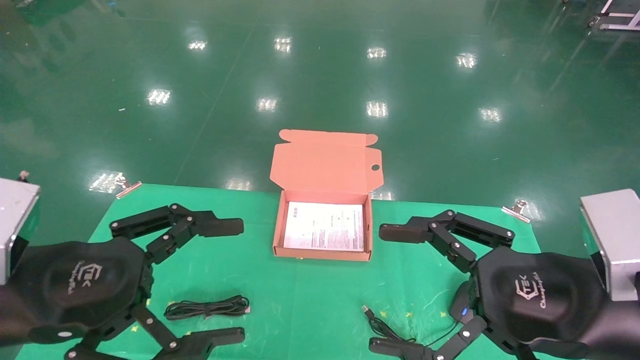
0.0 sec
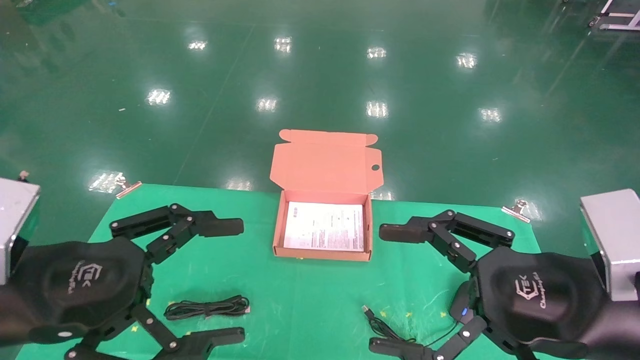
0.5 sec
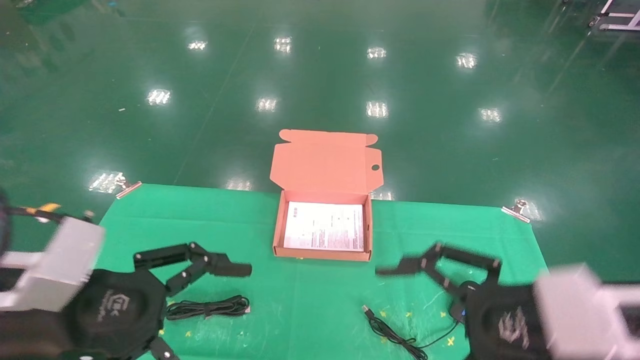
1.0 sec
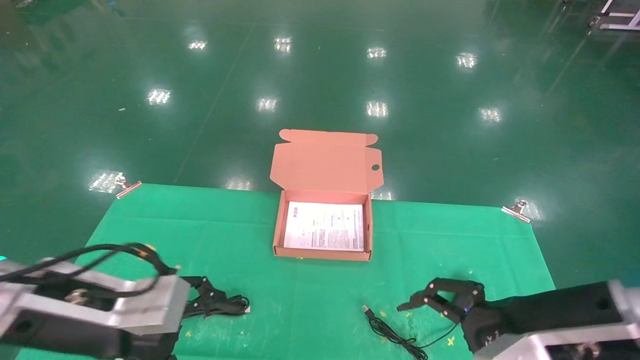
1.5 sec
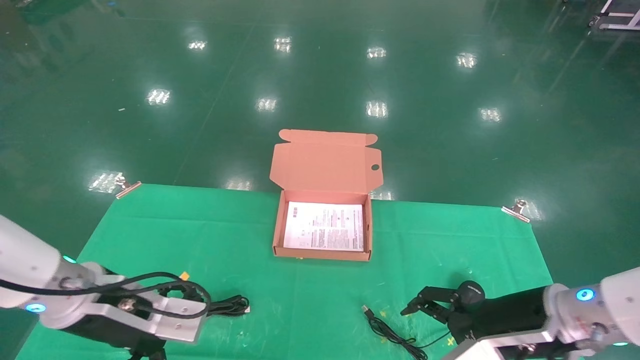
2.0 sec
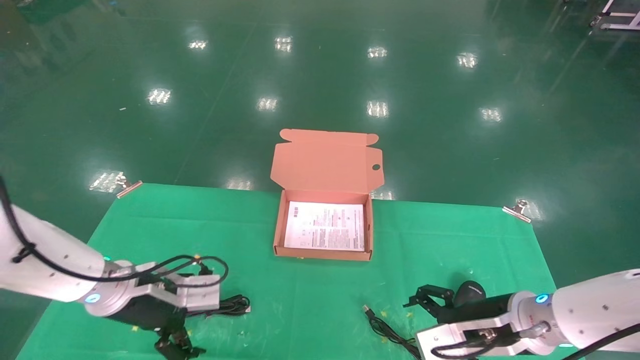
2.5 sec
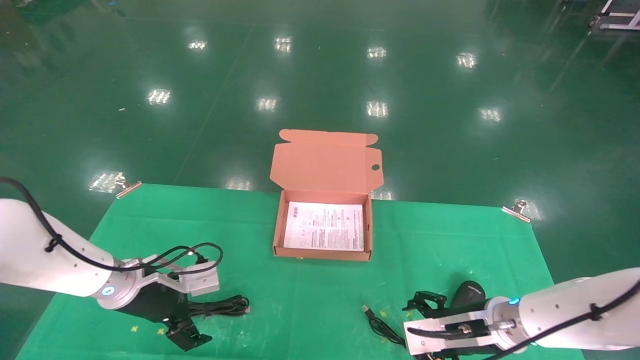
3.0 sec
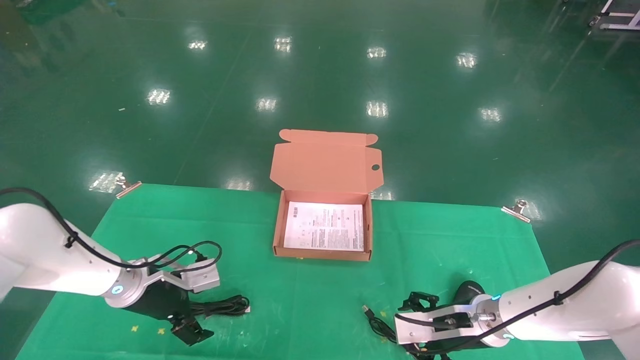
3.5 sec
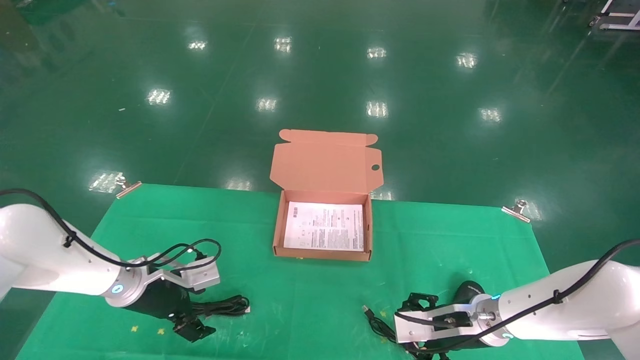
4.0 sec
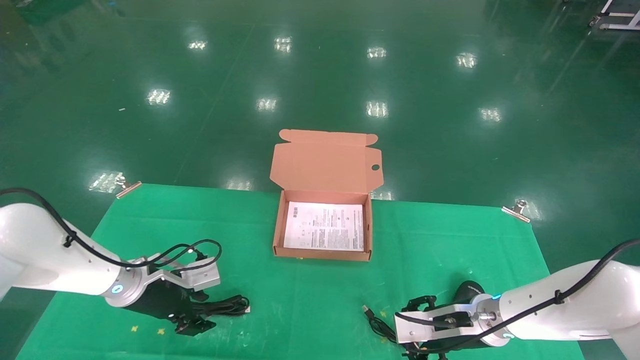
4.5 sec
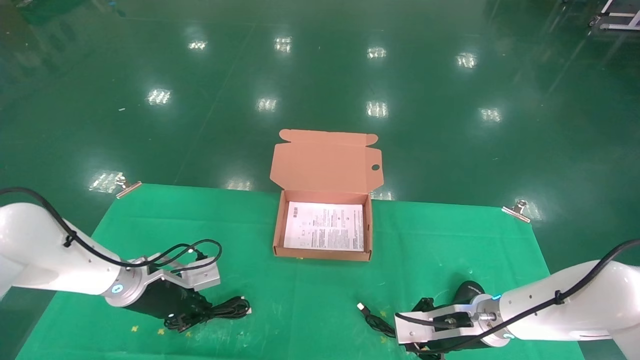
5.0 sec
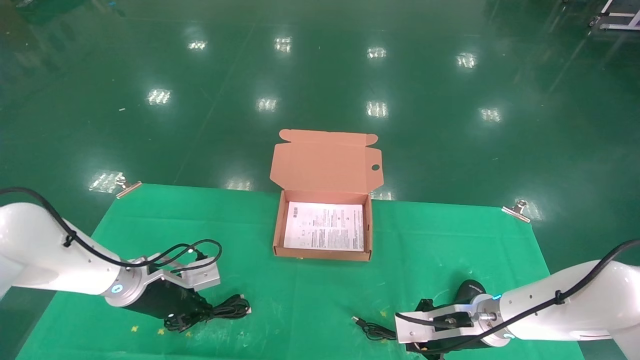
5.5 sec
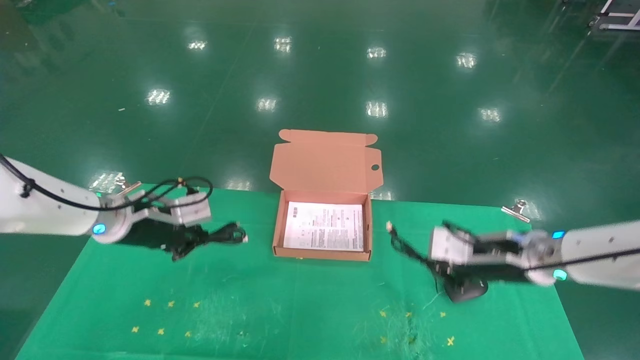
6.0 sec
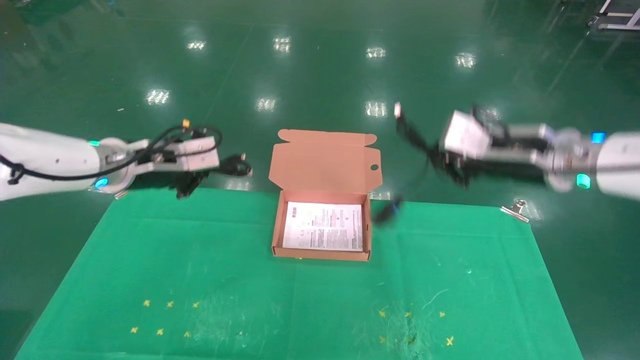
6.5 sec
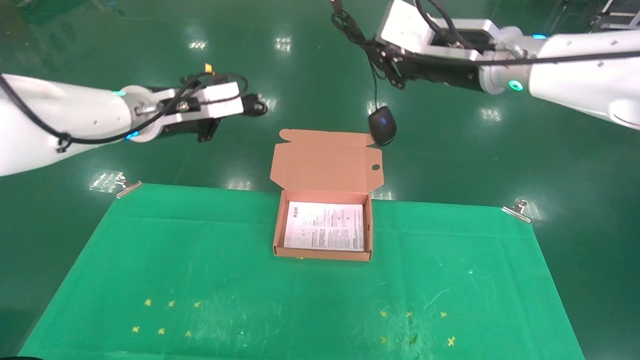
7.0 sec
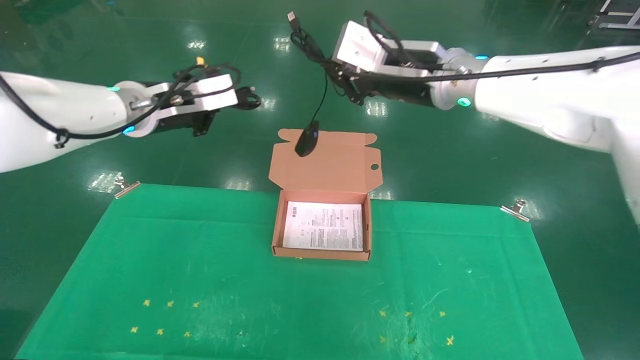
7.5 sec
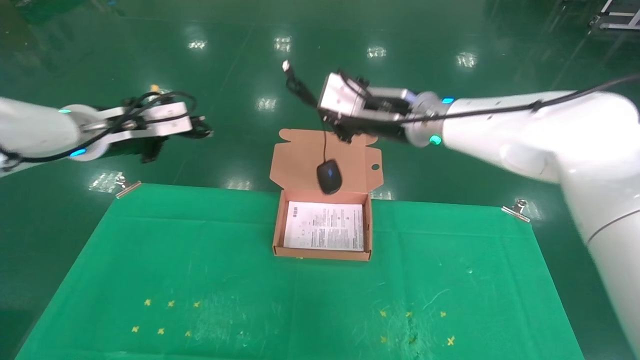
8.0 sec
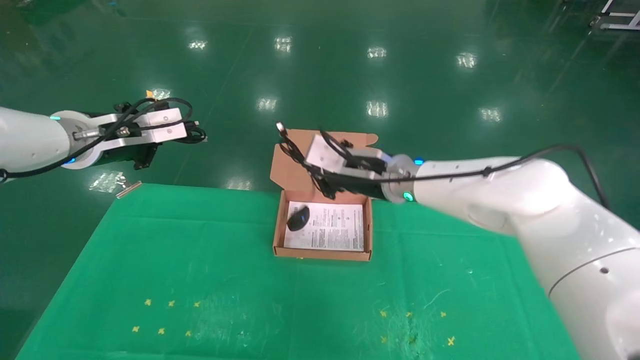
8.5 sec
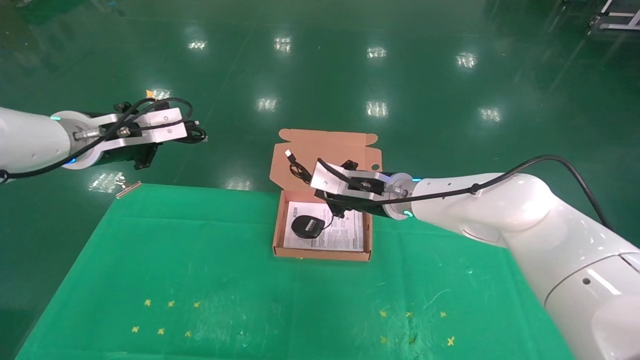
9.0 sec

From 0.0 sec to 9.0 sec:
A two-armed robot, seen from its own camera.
Task of the whole recording: grasp data cable left put into box grasp mouse right put into box.
Step, from 1.5 sec to 6.0 sec: Grab and pick up both the mouse and power cord from the accessory packaging area at the same time.
From 0.0 sec to 2.0 sec: Both grippers travel together forward and downward, roughly 15 cm.
From 2.0 sec to 4.5 sec: Both grippers move forward and downward, about 15 cm. The left gripper closes its fingers.
From 4.5 sec to 7.0 sec: The grippers both shift upward by about 30 cm. The left gripper closes. The right gripper closes up.
From 7.0 sec to 9.0 sec: The left gripper is displaced to the left by about 5 cm, while the right gripper goes some 20 cm downward and to the left.

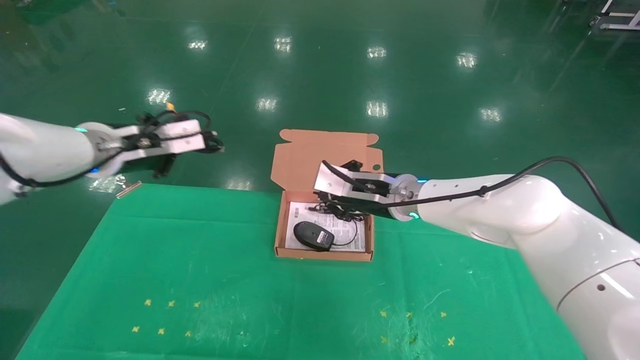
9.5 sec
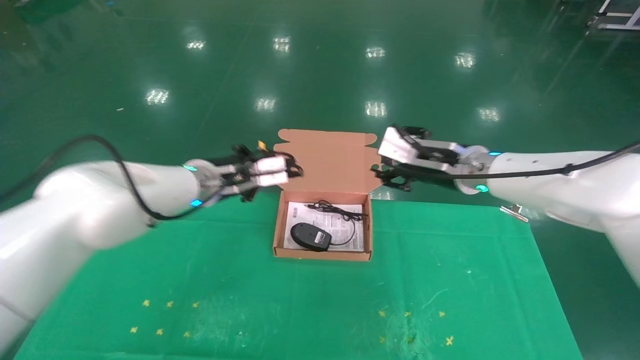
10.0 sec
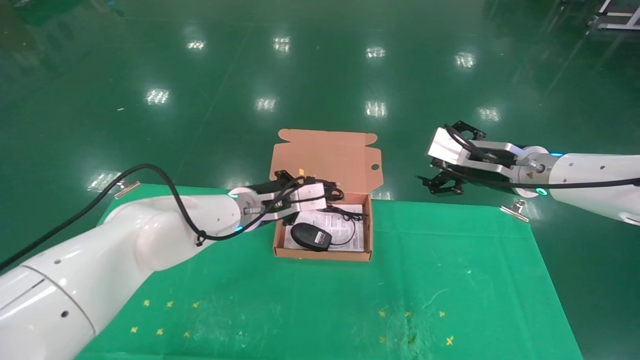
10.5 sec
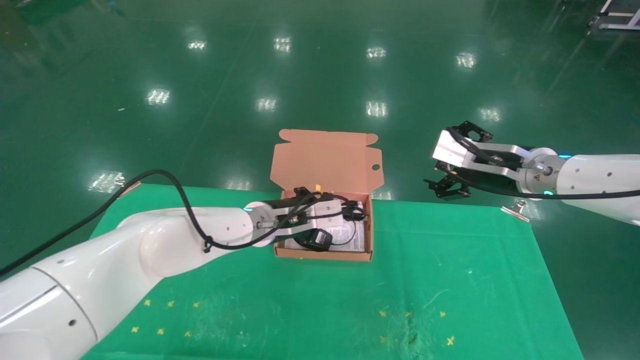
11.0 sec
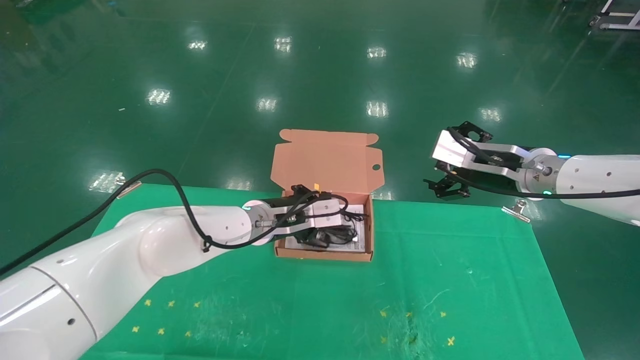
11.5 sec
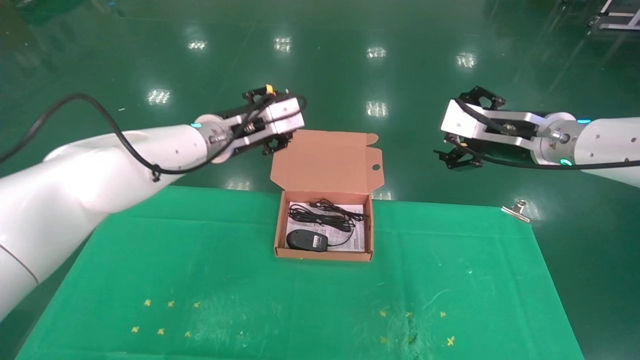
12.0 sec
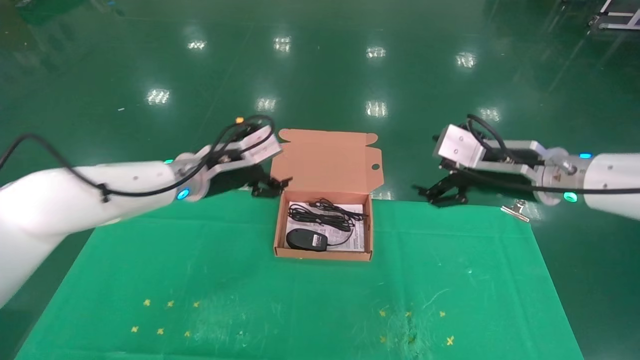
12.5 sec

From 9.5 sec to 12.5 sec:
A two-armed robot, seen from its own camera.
Task of the whole recording: grasp data cable left put into box grasp mouse right put into box.
Step, from 9.5 sec to 11.5 sec: Place the mouse and power cord into the box.
From 9.5 sec to 11.0 sec: The left gripper shifts roughly 25 cm to the right and downward. Meanwhile the right gripper goes about 15 cm to the right, and opens up.
From 11.0 sec to 12.5 sec: The left gripper is displaced to the left and upward by about 10 cm, and opens up.

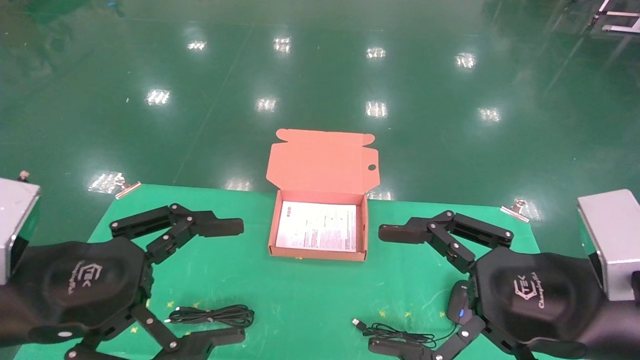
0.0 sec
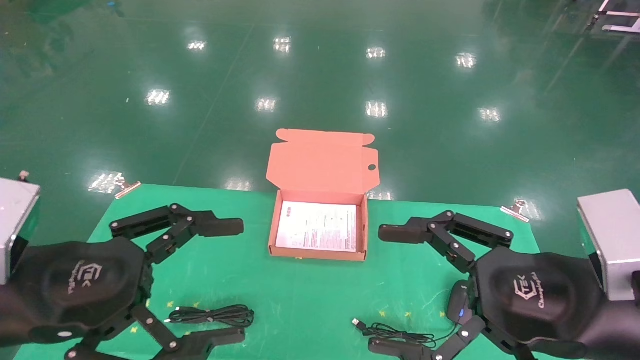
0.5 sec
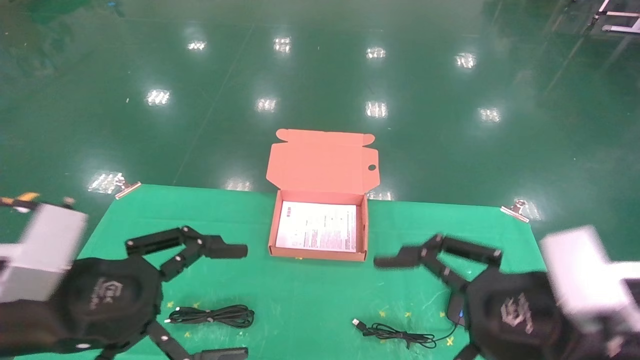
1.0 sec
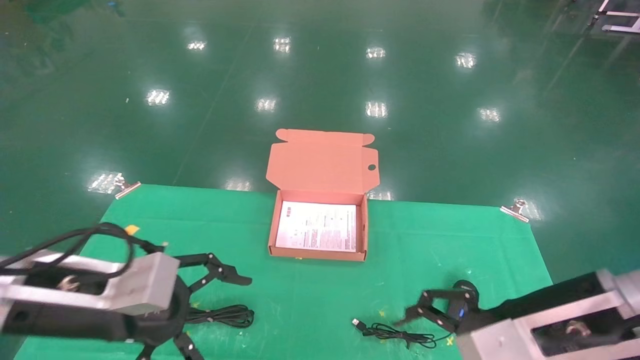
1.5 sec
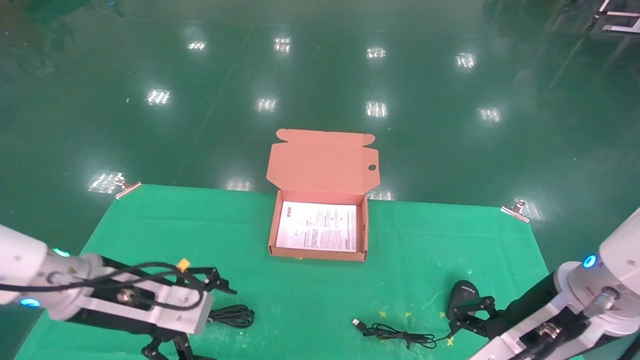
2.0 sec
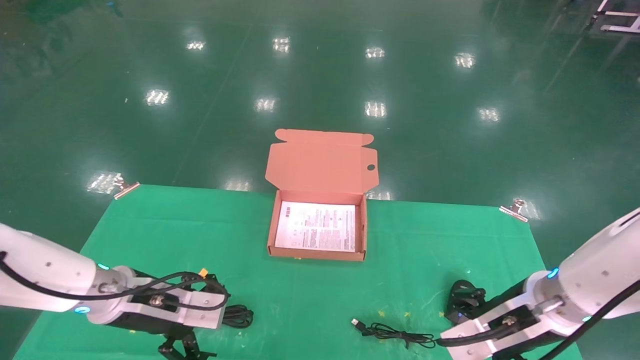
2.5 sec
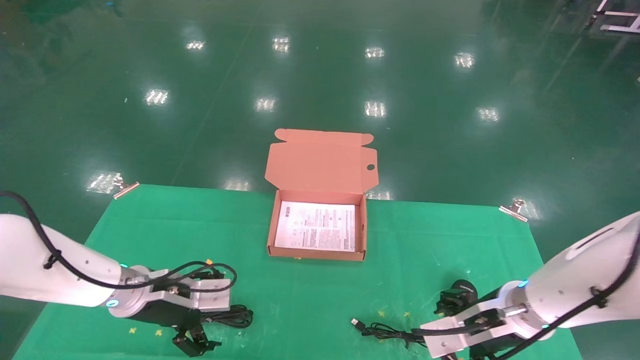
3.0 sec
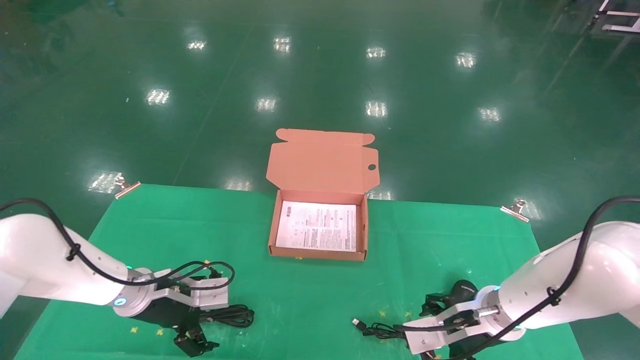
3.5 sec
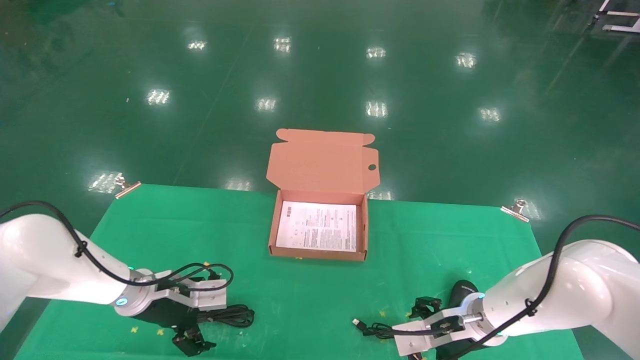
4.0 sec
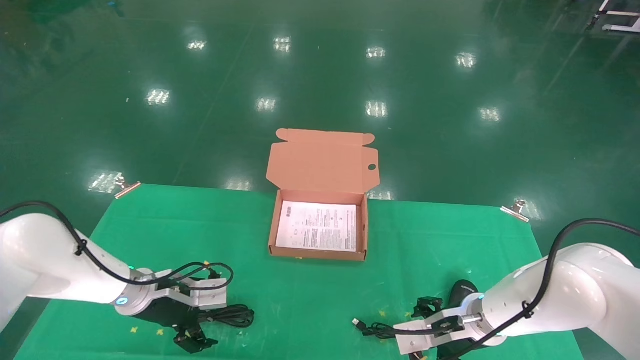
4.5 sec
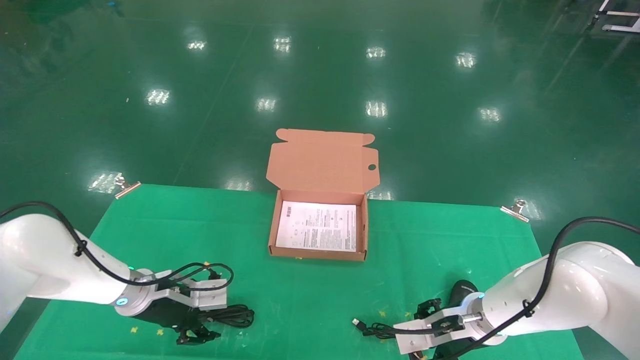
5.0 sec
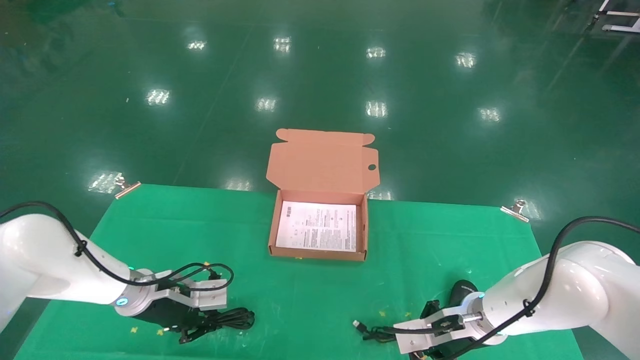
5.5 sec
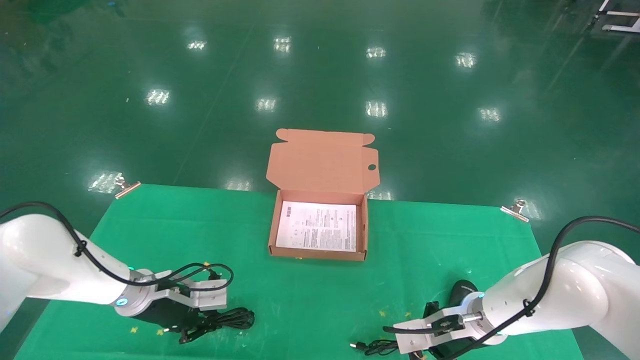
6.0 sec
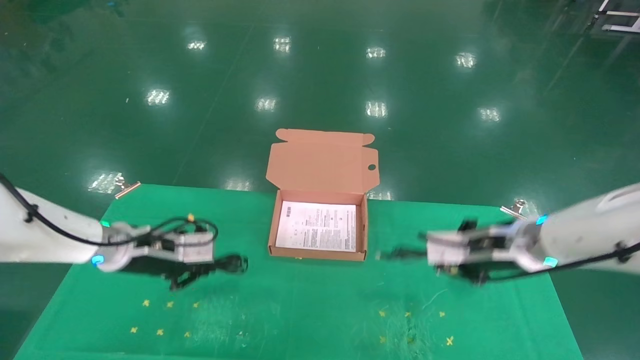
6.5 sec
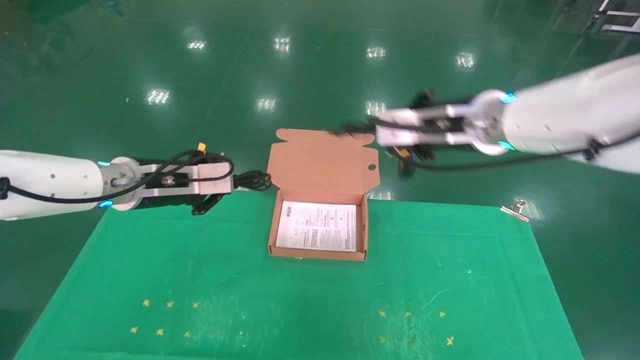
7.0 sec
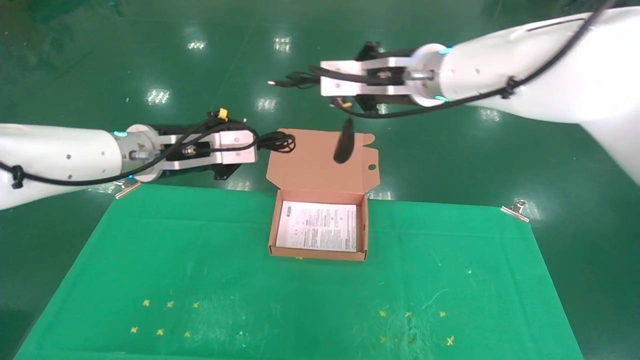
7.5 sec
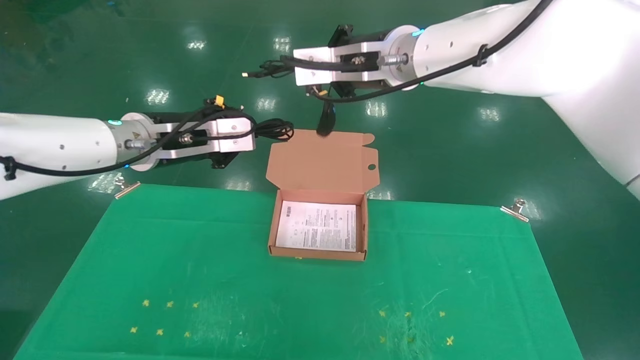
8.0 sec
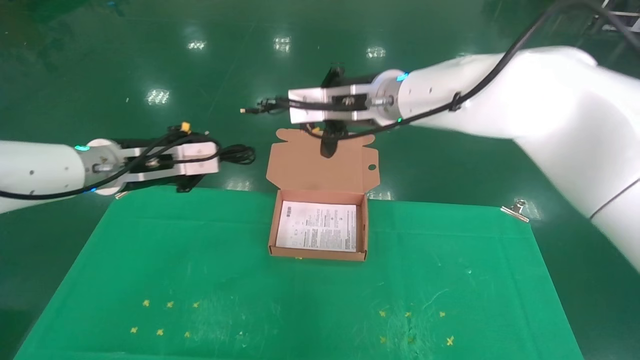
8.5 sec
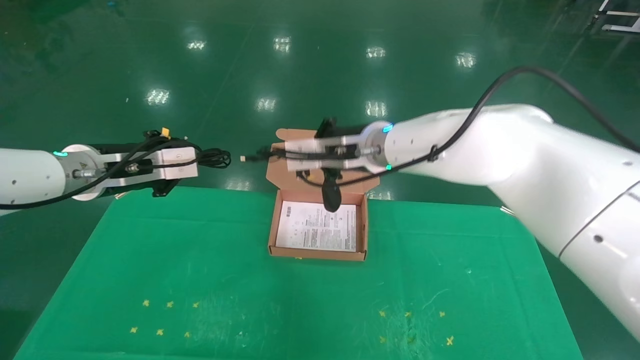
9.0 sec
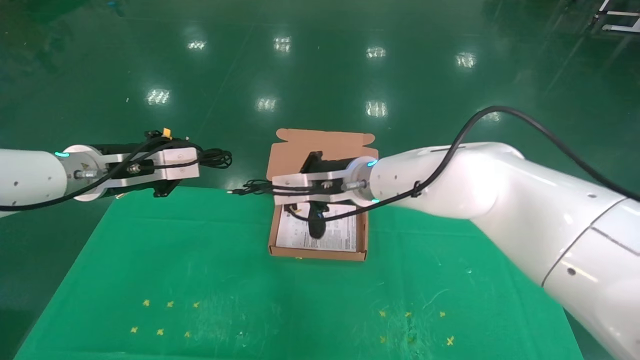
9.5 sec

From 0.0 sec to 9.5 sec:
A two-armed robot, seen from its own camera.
Task of the whole recording: grasp data cable left put into box grasp mouse right put into box.
Step, from 1.5 sec to 6.5 sec: Grab and pick up both the mouse and power cord from the accessory packaging area at the same time.
From 0.0 sec to 2.0 sec: The left gripper travels forward and downward by some 10 cm; the right gripper heads forward, covering approximately 10 cm.
From 2.0 sec to 4.0 sec: The left gripper is displaced forward and downward by approximately 15 cm. The right gripper travels downward and forward by approximately 20 cm.
From 4.0 sec to 5.5 sec: The left gripper closes its fingers; the right gripper closes its fingers.
From 5.5 sec to 7.5 sec: Both grippers travel together upward, approximately 30 cm. The right gripper closes.
From 7.5 sec to 9.5 sec: The right gripper travels downward and to the left by approximately 15 cm. The left gripper travels to the left by approximately 5 cm.
